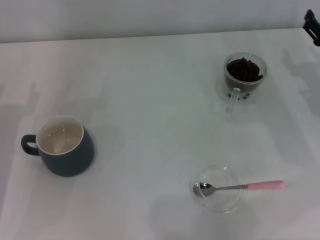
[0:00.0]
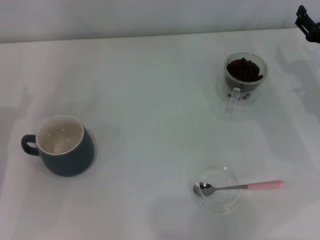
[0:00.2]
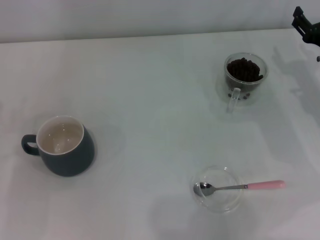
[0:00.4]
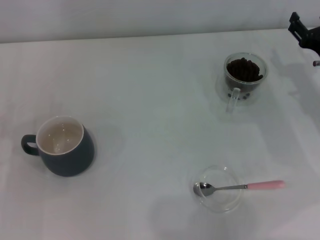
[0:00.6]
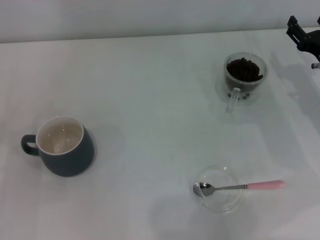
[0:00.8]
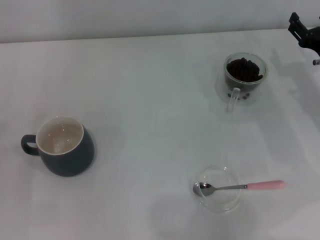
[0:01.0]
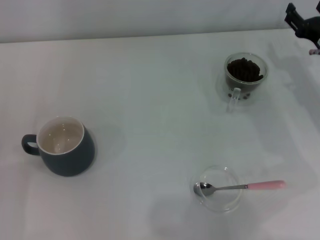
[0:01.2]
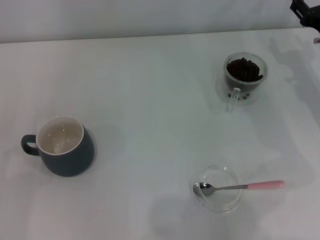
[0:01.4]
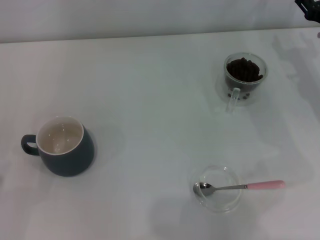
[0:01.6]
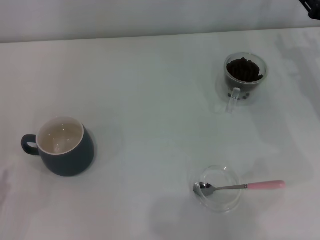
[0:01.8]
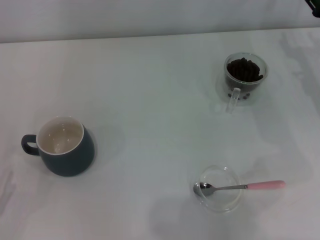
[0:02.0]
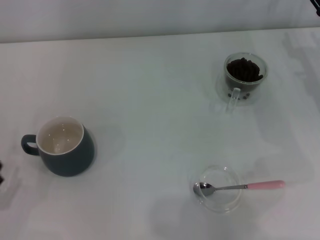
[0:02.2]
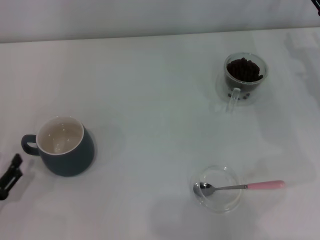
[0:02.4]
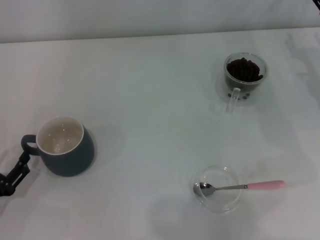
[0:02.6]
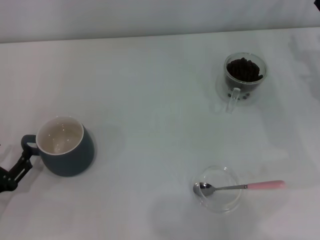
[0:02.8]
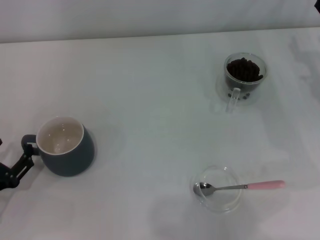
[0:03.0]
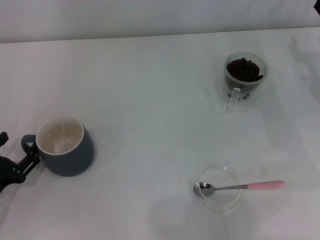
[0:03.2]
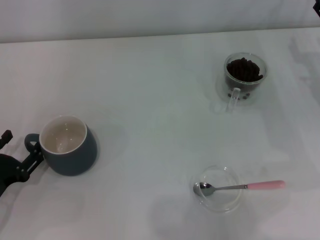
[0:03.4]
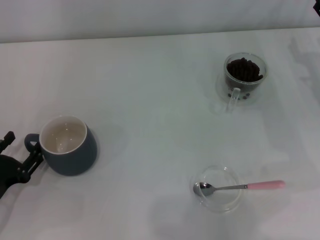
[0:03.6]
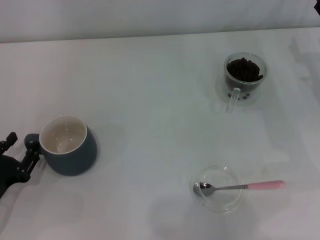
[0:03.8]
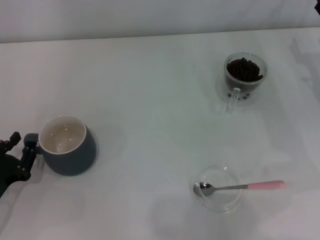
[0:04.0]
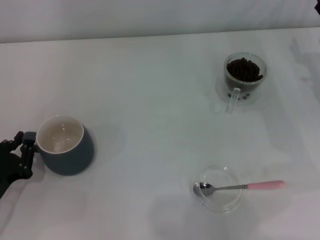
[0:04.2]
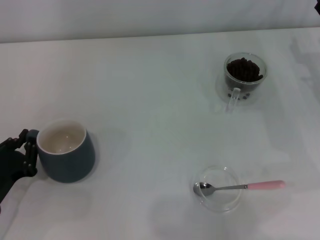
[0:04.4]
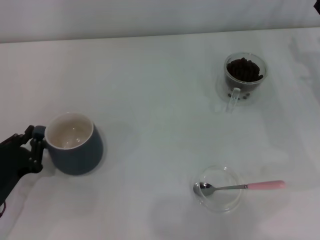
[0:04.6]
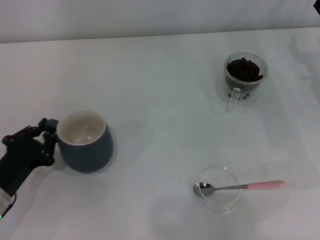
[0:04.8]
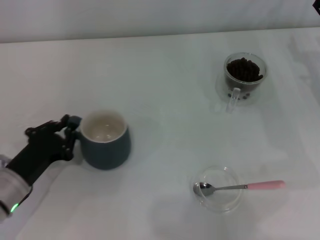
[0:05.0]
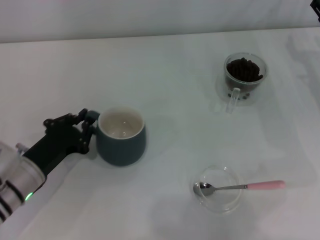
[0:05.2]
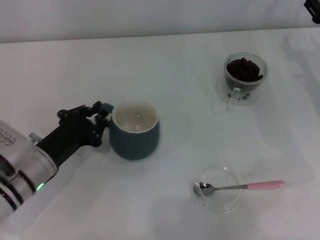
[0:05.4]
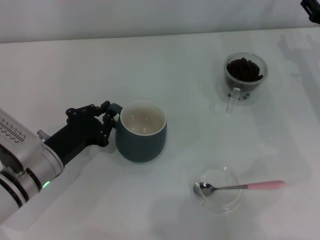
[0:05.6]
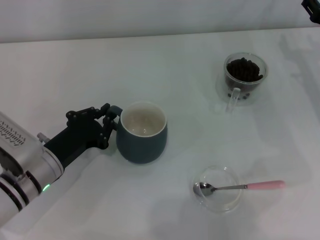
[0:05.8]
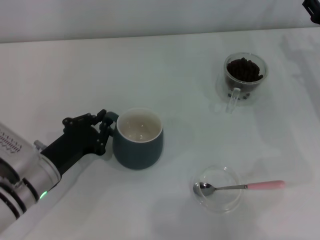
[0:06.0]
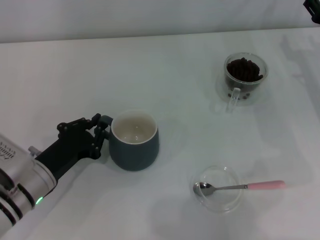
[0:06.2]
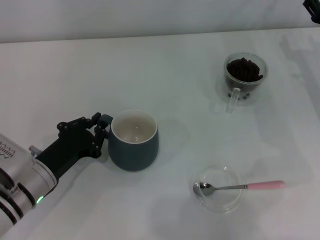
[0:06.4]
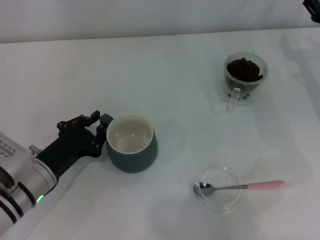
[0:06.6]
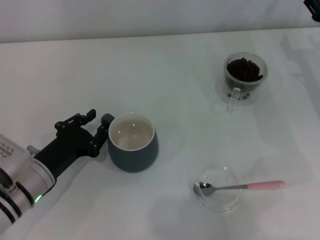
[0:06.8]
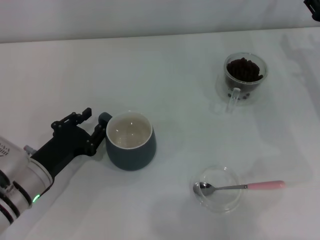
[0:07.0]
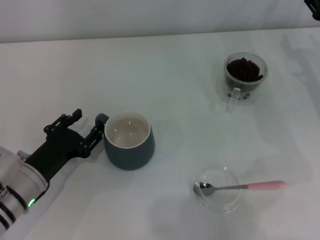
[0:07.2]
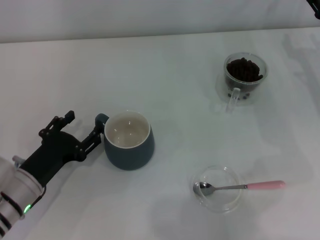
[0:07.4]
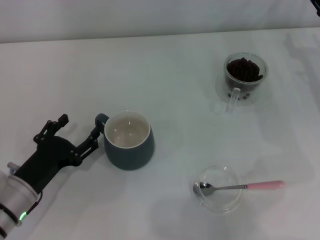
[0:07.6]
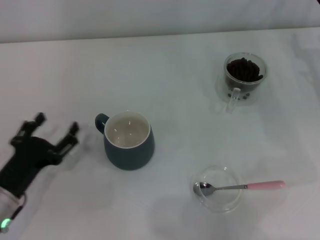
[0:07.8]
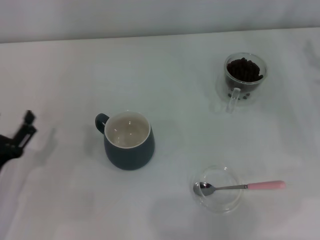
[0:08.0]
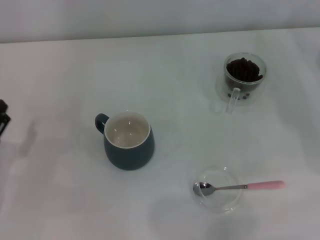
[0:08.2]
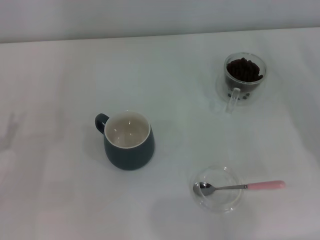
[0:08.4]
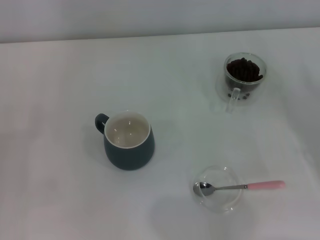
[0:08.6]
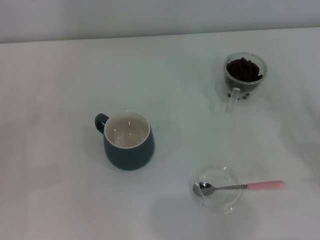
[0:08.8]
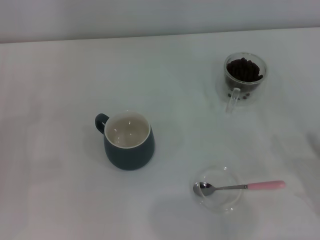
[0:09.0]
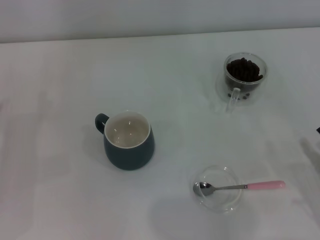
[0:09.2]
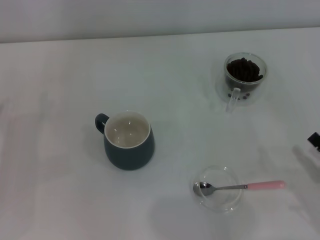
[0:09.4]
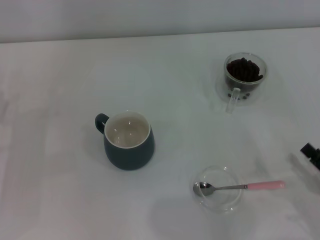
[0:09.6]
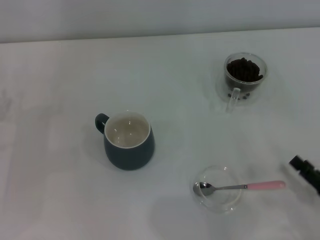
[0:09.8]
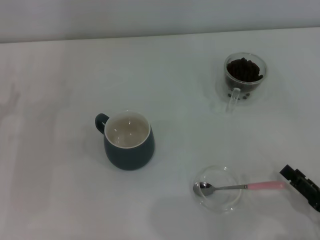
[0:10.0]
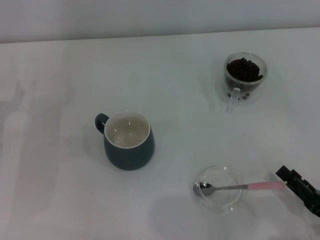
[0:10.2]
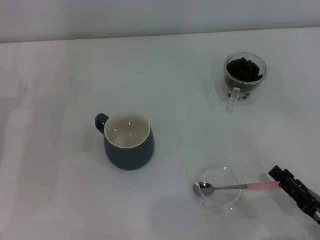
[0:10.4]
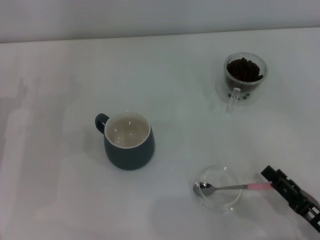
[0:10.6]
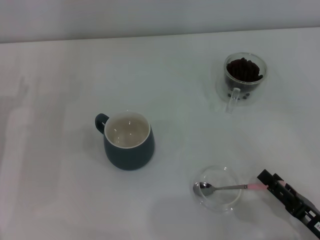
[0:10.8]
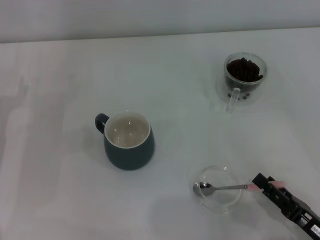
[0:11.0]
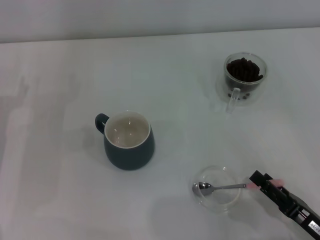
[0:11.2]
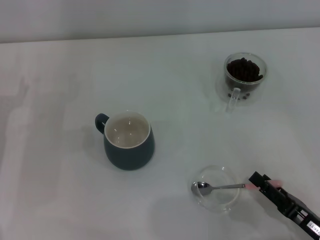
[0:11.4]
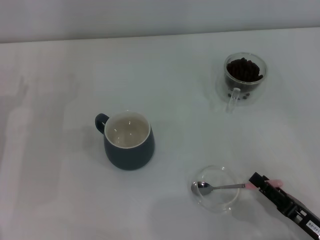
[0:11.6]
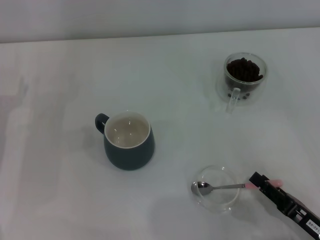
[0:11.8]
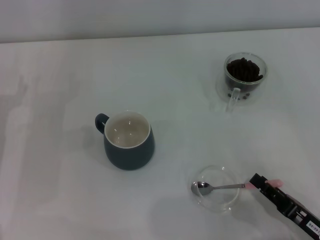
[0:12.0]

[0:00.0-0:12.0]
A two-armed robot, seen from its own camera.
Task of the whole recording: Use a pink spoon to take out the coffee beans from the glass and pour them into the gray cup.
Step, 0:00.0 to 0:07.6: Move the cup to the center of view with the left gripper.
0:01.6 to 0:03.0: The left gripper goes about 5 cm forward.
0:03.0 to 0:04.4: The left gripper closes.
0:04.4 to 0:06.0: The left gripper heads to the right and forward, covering about 10 cm.
0:06.0 to 0:07.6: The left gripper opens up.
0:07.6 to 0:09.0: The left gripper is displaced to the left by some 10 cm; the right gripper moves backward, approximately 25 cm.
0:09.0 to 0:10.4: The right gripper heads to the left, covering roughly 5 cm.
0:10.4 to 0:12.0: The right gripper closes.

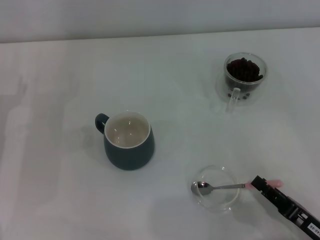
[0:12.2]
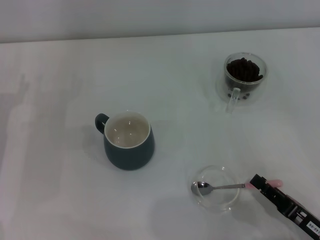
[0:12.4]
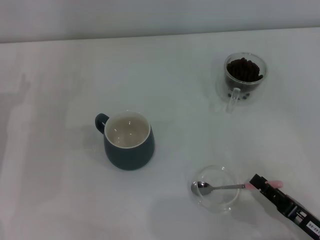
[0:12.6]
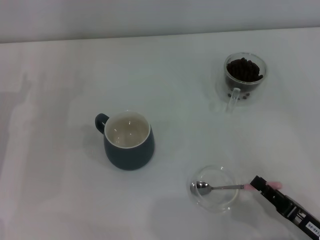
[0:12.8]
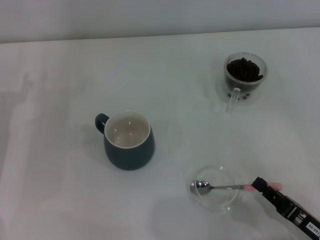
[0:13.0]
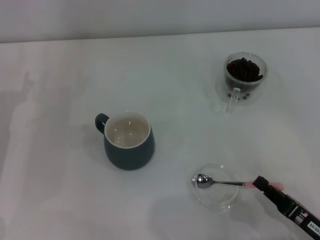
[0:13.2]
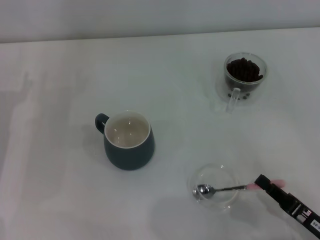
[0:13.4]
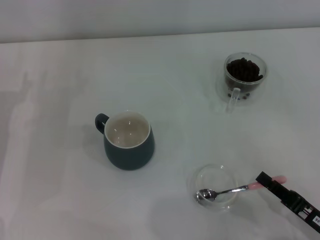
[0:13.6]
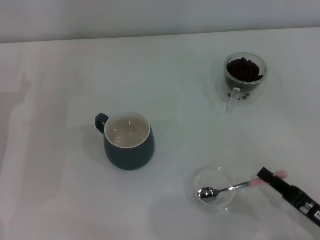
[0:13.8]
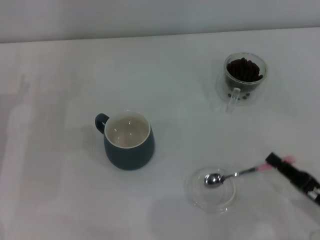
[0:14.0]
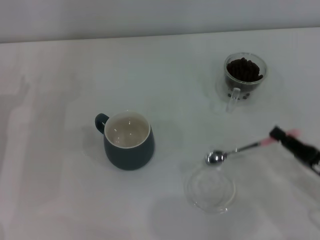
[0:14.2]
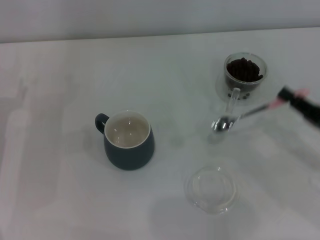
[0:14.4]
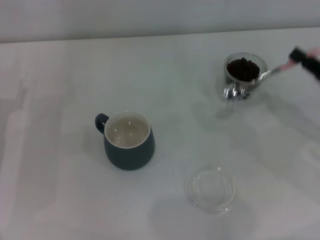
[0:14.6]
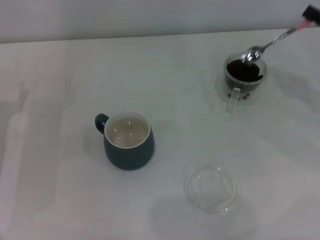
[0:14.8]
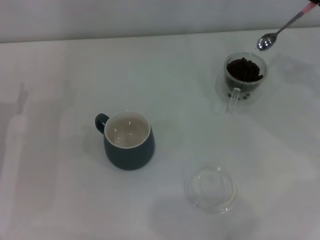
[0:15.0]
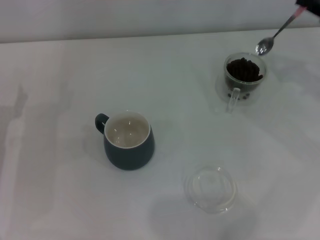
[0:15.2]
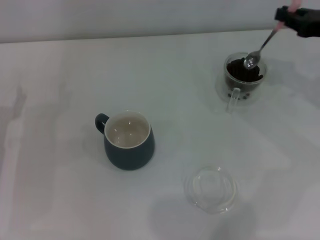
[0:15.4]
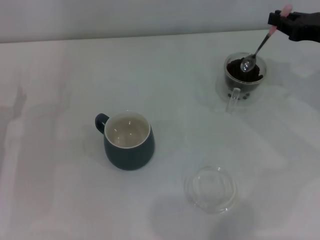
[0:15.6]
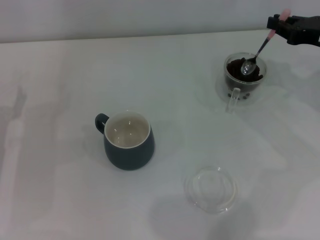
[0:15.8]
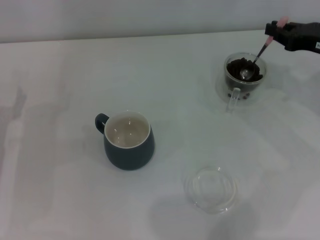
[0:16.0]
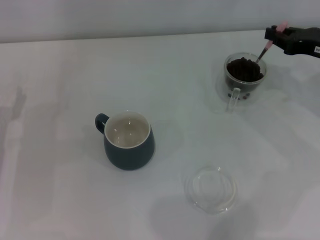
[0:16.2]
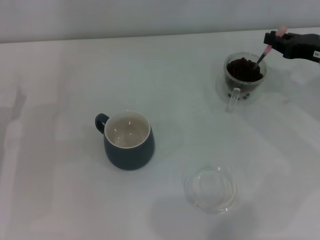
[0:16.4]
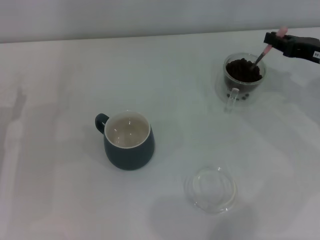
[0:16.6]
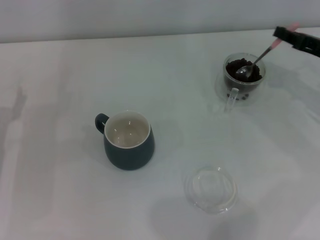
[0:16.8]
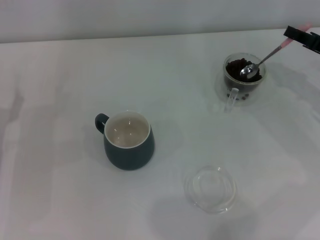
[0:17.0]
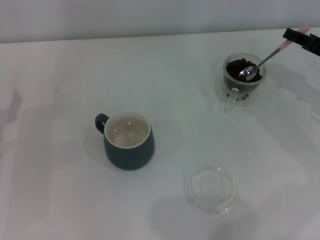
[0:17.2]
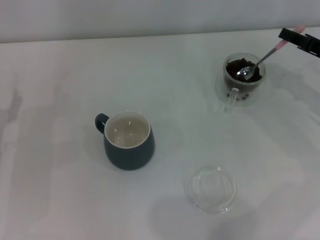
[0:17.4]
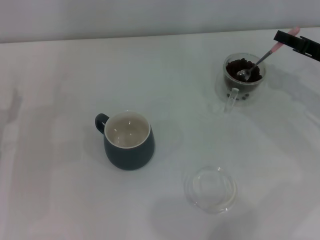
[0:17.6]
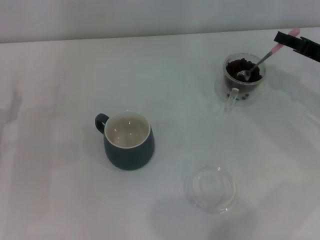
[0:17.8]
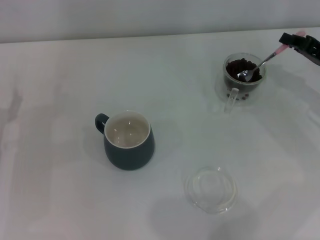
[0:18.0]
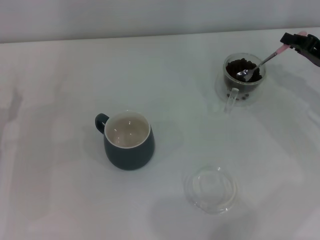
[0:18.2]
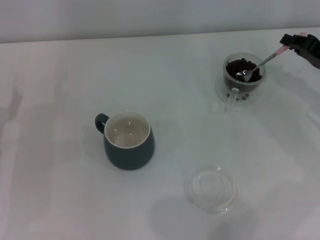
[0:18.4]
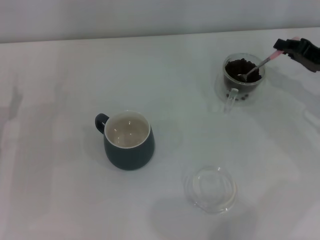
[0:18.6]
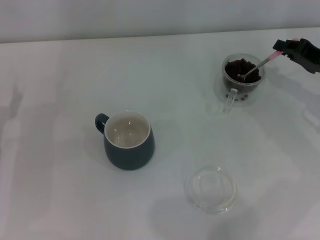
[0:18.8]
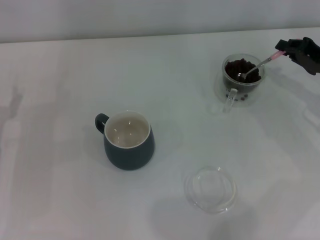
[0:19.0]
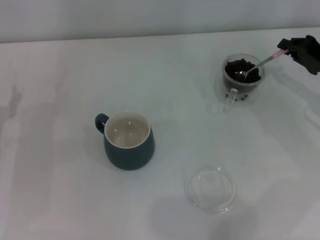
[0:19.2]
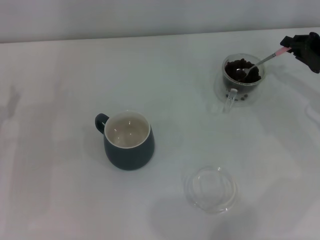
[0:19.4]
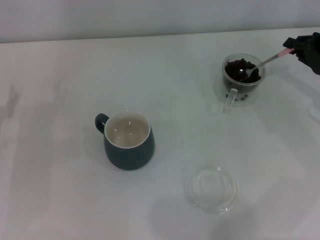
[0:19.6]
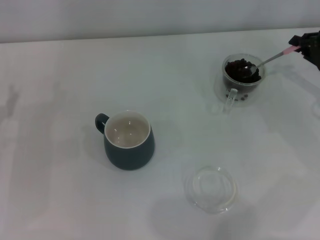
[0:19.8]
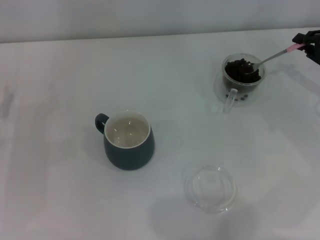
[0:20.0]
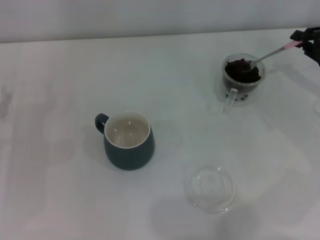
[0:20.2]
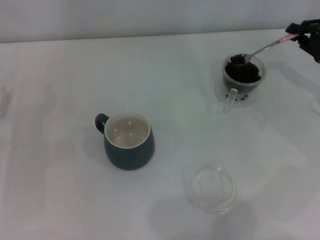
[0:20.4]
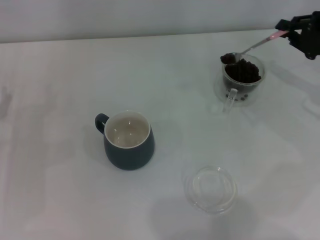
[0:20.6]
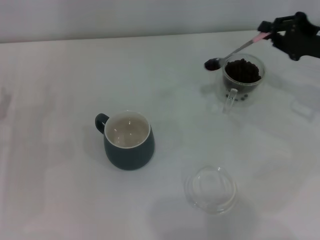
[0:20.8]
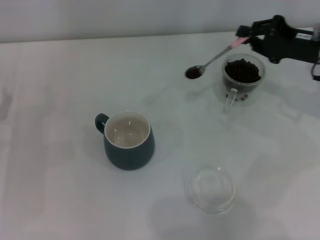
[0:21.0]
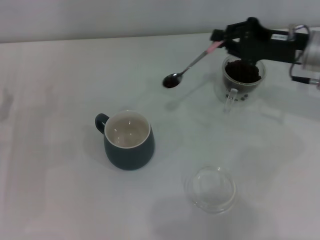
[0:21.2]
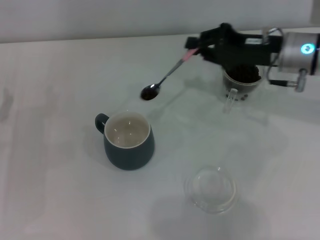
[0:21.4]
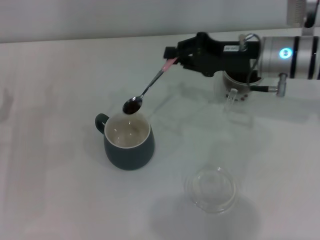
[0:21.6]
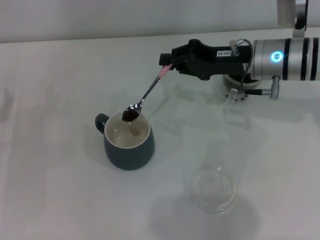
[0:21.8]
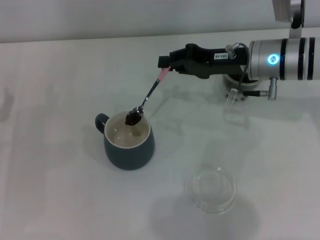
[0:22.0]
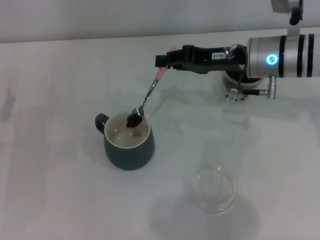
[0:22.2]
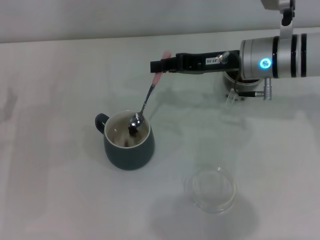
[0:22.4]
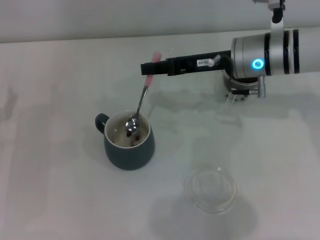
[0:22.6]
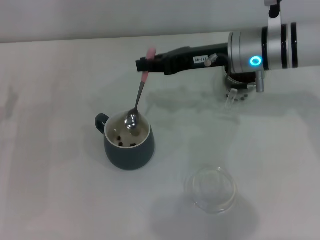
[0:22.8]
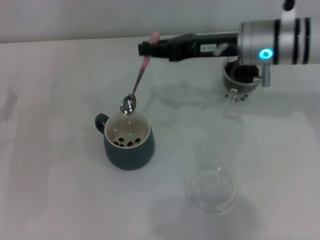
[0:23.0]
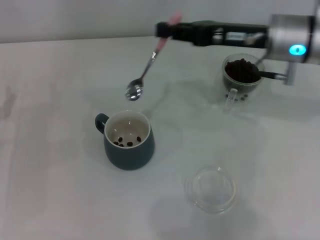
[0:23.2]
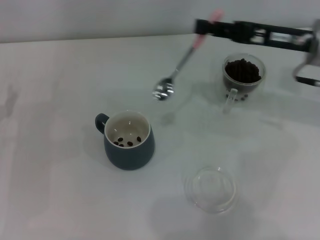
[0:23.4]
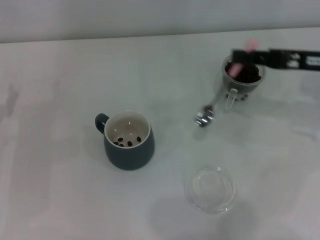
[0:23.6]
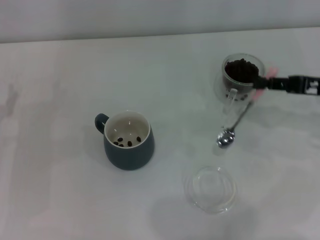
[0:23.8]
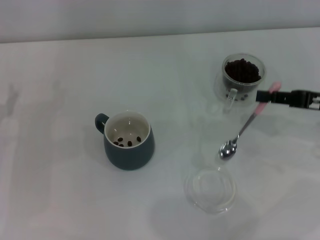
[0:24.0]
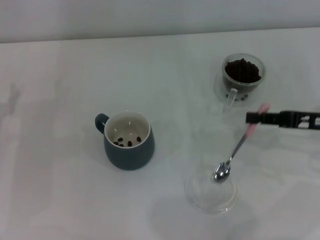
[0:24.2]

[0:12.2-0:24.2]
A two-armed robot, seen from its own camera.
Task of the whole recording: Use a pink spoon to take out the coffee beans from the glass and pour them into the gray cup.
Step, 0:14.2 to 0:22.4: Scoop a spoonful of beans into the cup with the right gripper.
0:12.2 to 0:13.8: The right gripper closes its fingers.
0:13.8 to 0:15.2: The right gripper is displaced forward and upward by approximately 30 cm.
0:15.2 to 0:16.6: The right gripper heads downward, covering approximately 5 cm.
0:18.2 to 0:19.8: The grippers make only small movements.
0:19.8 to 0:21.2: The right gripper is displaced to the left by some 10 cm.
0:21.2 to 0:22.6: The right gripper travels to the left by about 10 cm.
0:22.6 to 0:24.2: The right gripper shifts some 20 cm to the right and backward.
